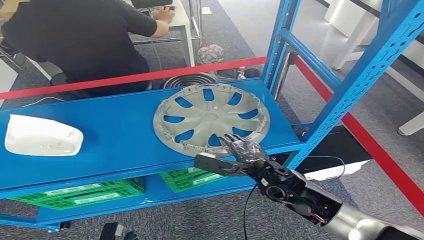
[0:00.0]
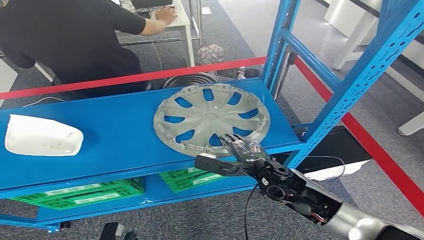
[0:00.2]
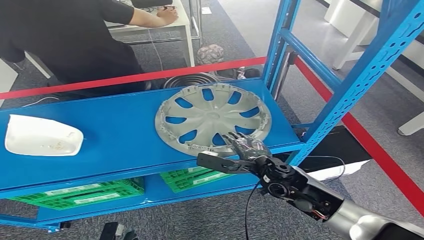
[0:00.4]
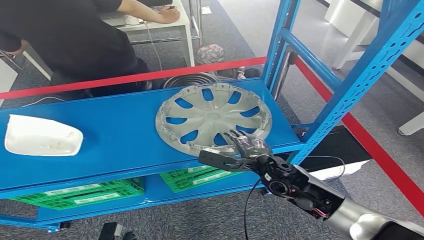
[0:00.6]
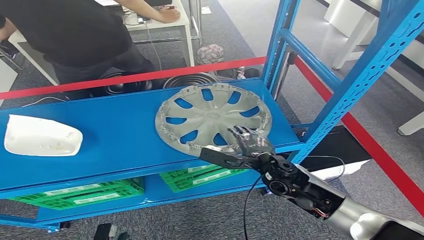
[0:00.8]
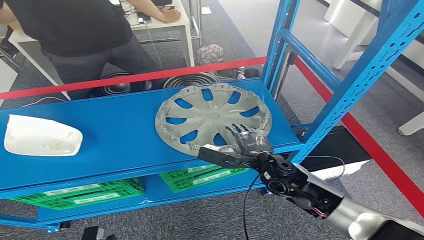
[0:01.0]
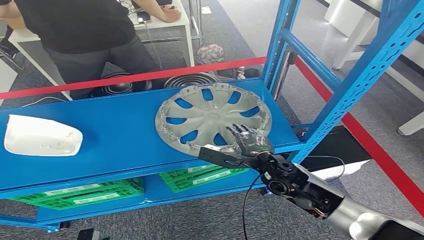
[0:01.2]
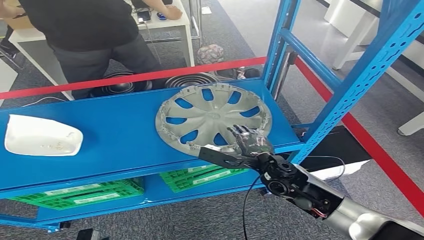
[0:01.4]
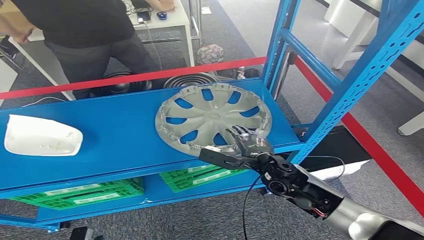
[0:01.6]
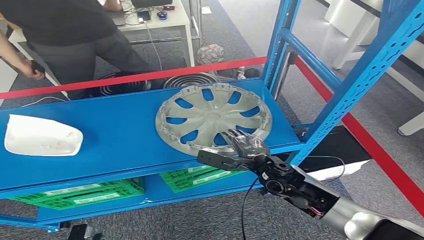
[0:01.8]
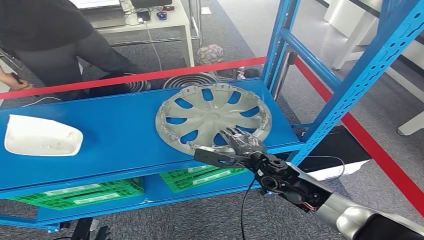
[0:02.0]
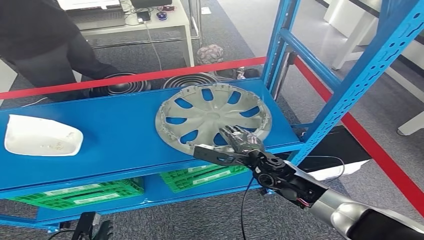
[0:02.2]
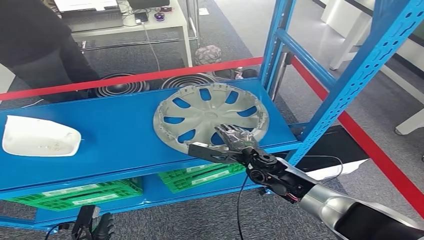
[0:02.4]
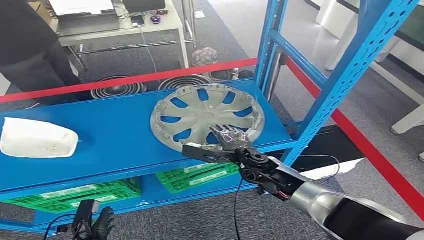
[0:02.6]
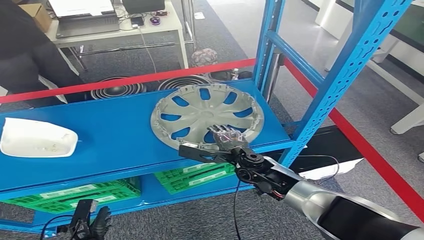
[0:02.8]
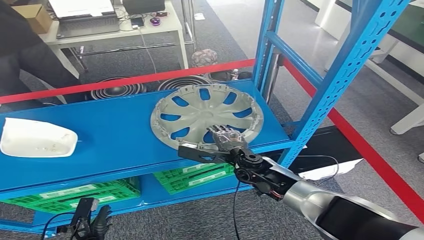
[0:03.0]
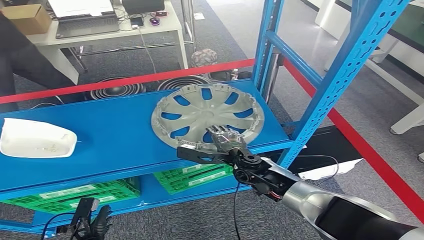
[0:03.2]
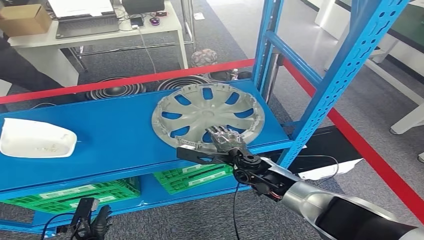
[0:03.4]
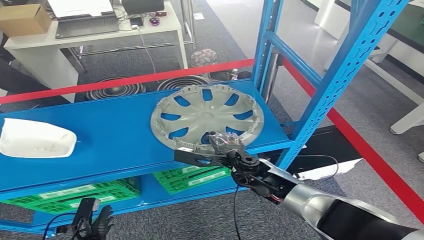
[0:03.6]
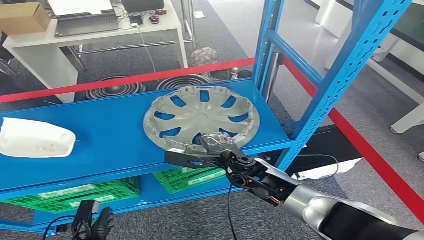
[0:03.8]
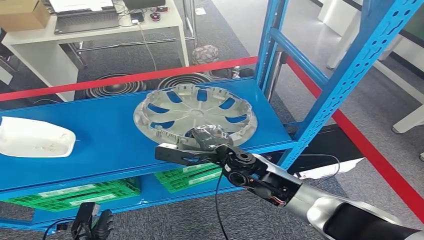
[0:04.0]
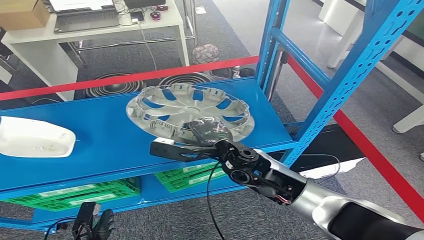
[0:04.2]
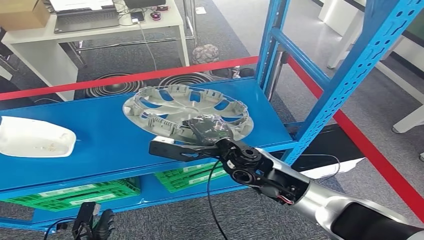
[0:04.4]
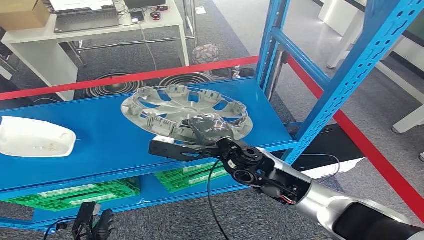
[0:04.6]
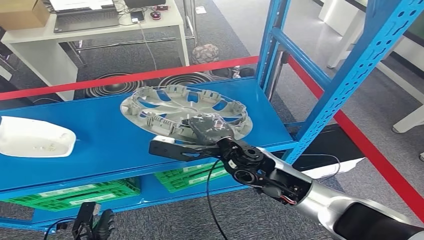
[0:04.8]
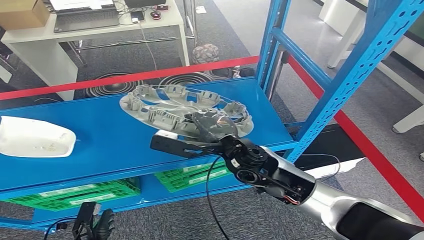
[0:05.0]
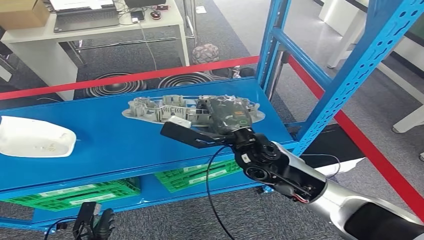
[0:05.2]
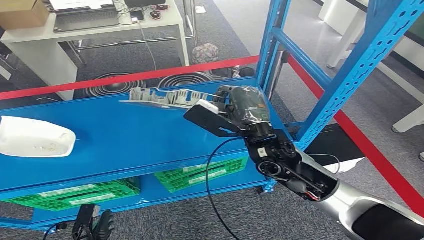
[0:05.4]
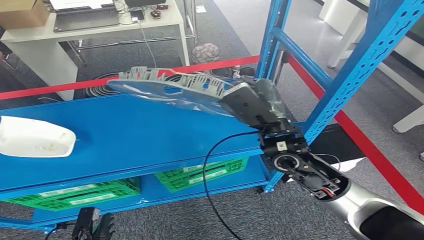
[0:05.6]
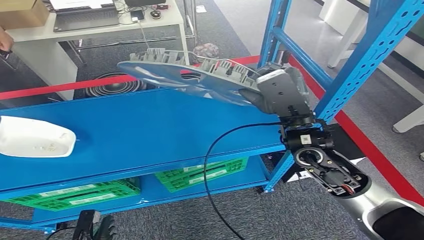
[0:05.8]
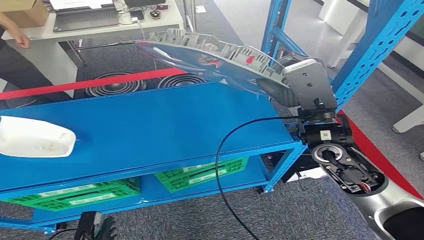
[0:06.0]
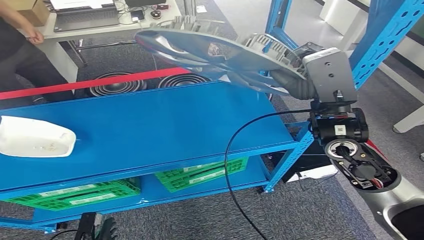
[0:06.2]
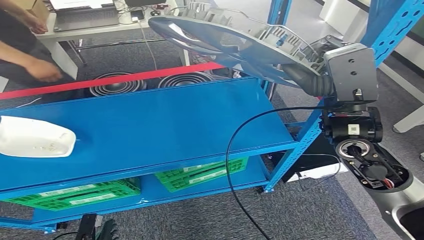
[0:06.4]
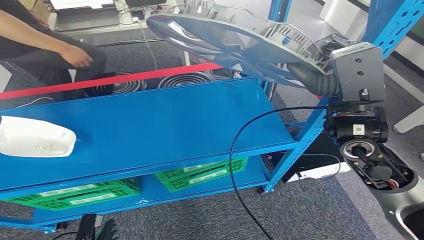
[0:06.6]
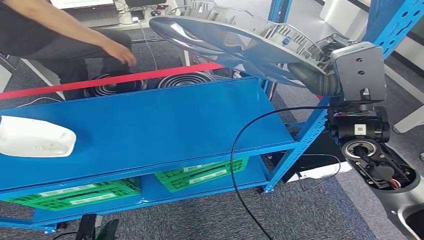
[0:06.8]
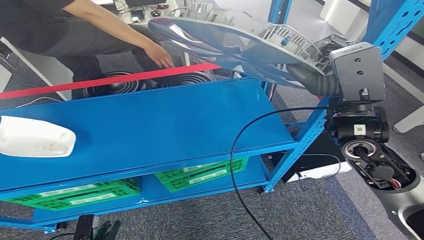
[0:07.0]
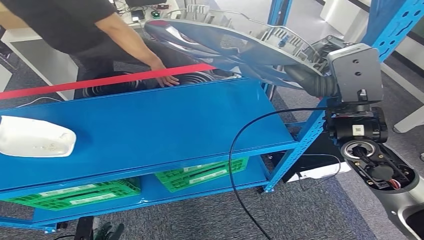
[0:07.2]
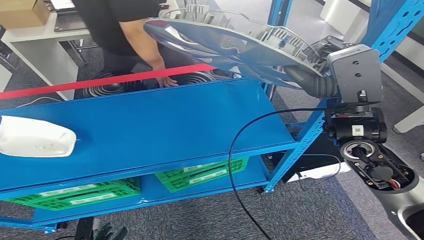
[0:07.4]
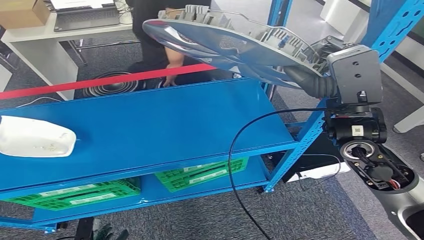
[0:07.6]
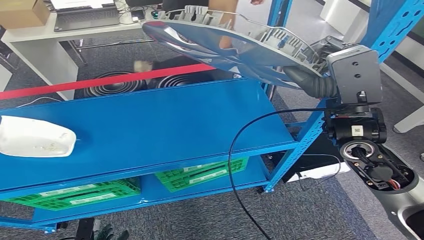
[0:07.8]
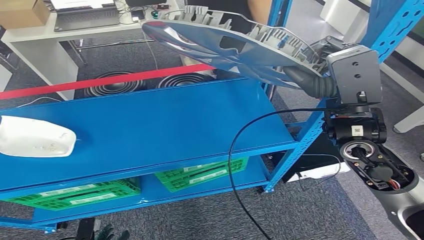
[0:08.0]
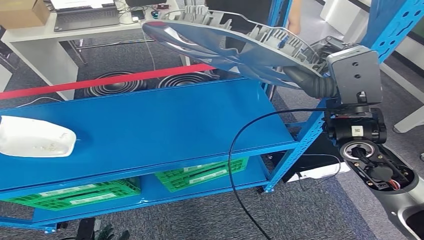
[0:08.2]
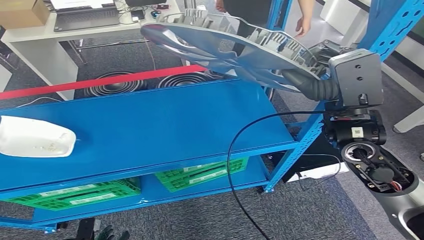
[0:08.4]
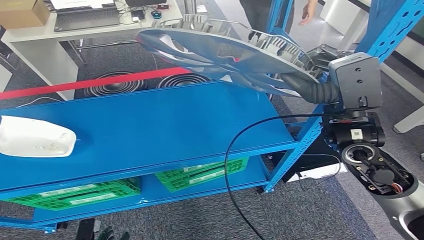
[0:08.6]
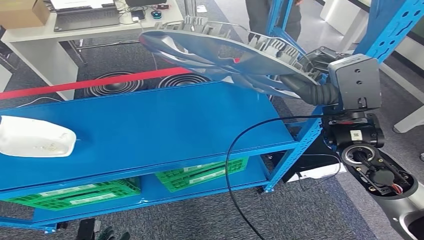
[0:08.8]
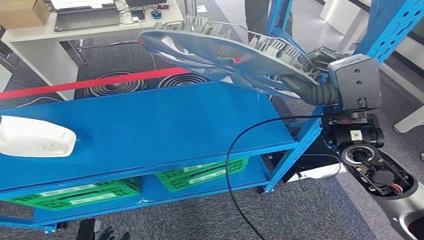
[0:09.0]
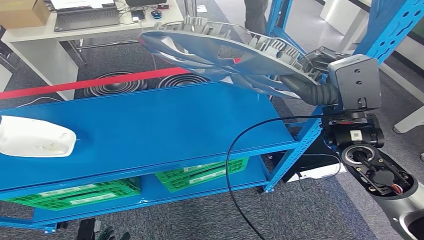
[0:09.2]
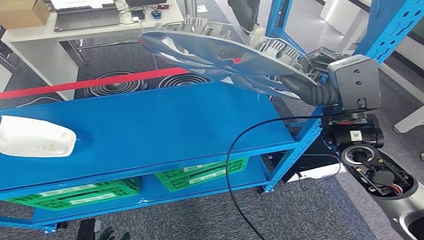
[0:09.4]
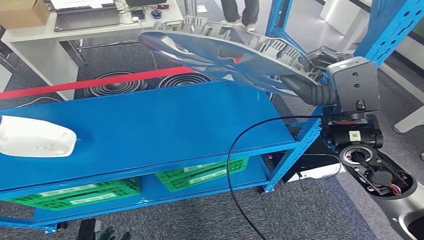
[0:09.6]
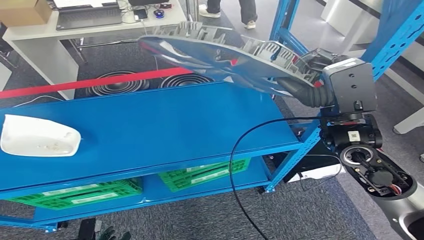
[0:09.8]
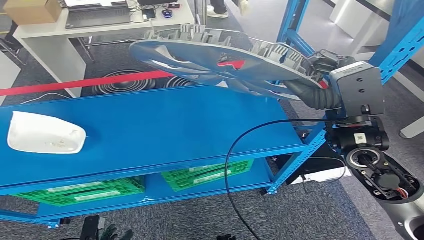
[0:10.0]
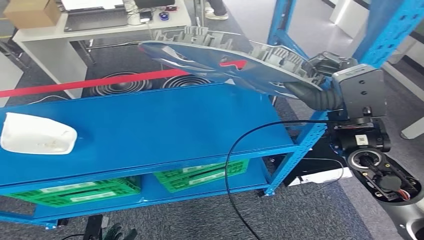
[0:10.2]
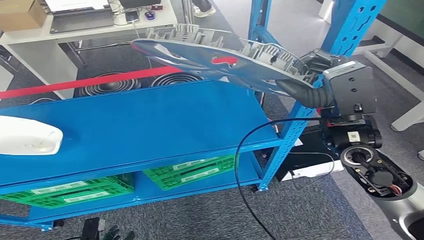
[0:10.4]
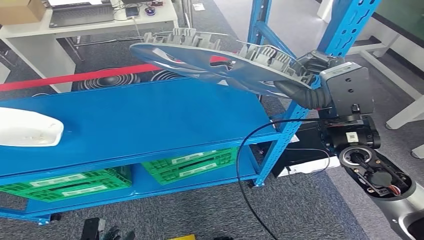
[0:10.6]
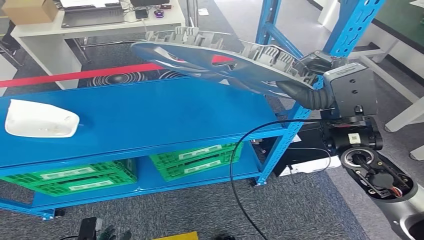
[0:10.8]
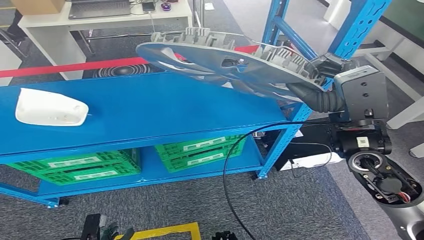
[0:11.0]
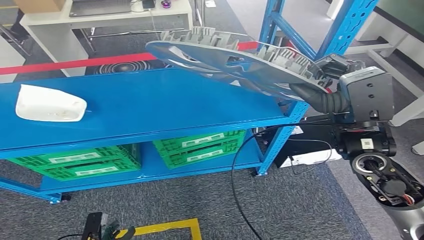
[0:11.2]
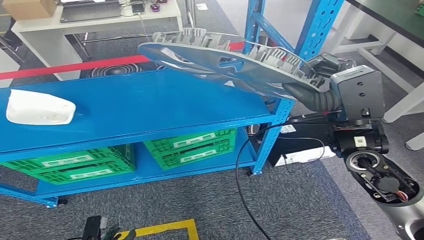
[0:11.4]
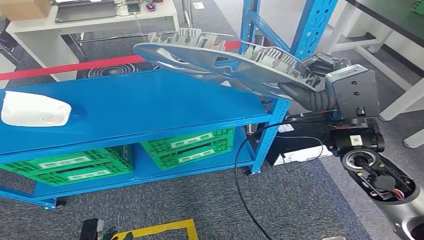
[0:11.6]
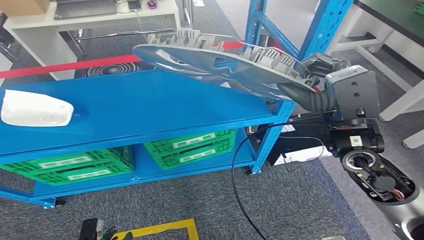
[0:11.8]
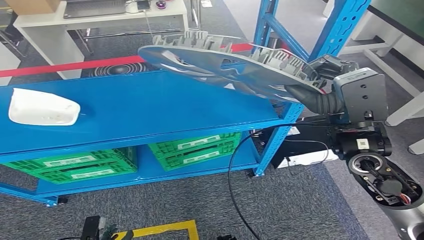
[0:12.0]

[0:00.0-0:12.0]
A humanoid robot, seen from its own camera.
Step, 0.0 to 7.6 s: Take small components from the rack.
0.0 to 1.6 s: The left hand heads to the left, covering roughly 5 cm.
7.6 to 9.0 s: The hands move only a little.

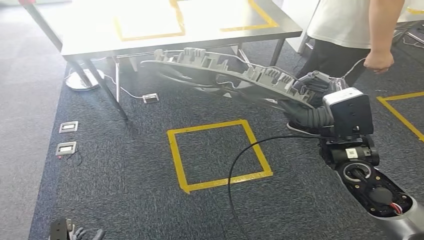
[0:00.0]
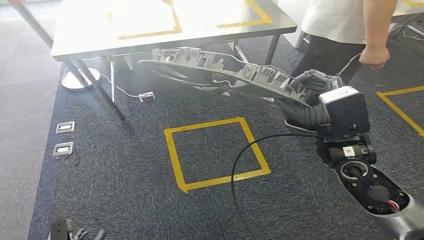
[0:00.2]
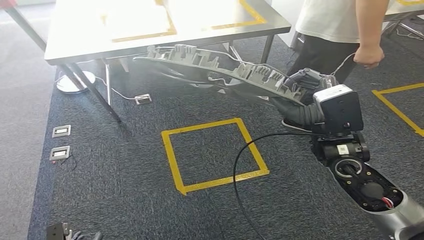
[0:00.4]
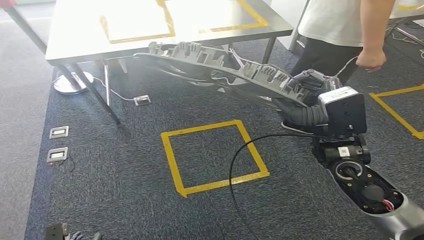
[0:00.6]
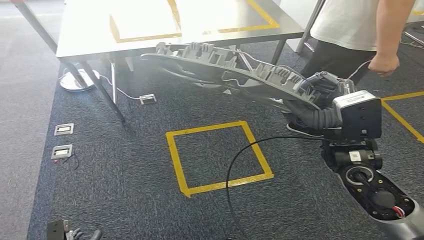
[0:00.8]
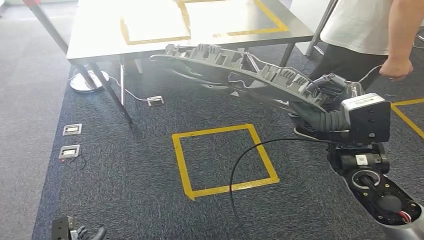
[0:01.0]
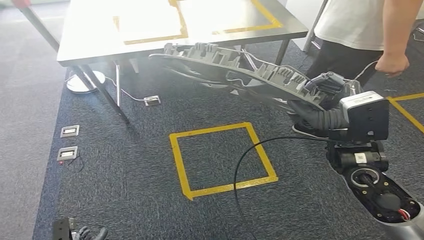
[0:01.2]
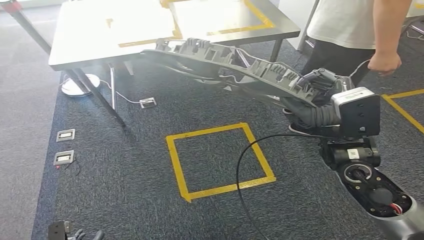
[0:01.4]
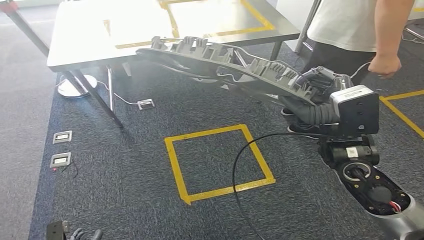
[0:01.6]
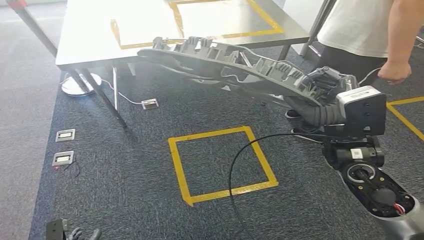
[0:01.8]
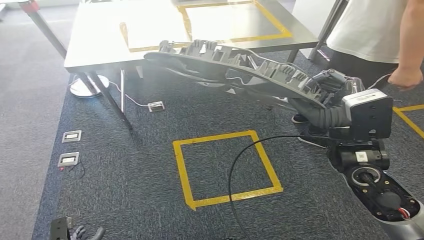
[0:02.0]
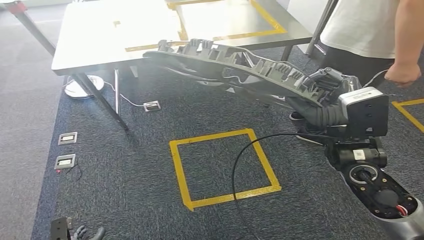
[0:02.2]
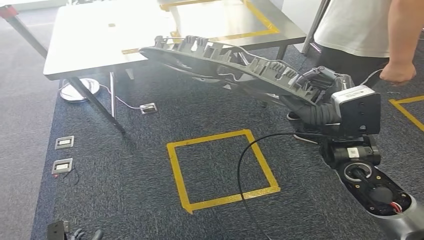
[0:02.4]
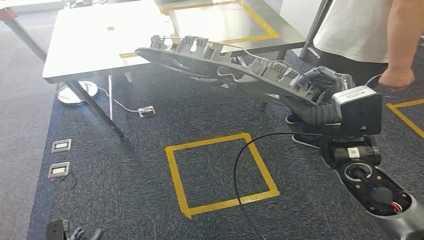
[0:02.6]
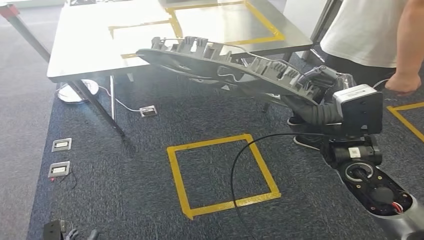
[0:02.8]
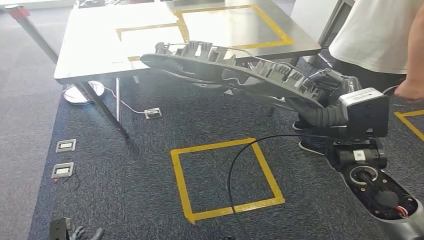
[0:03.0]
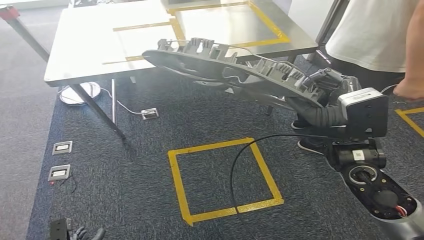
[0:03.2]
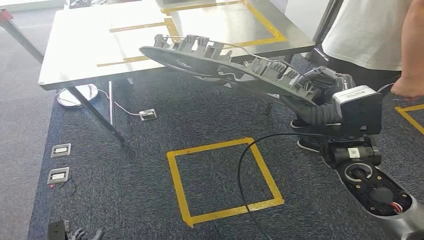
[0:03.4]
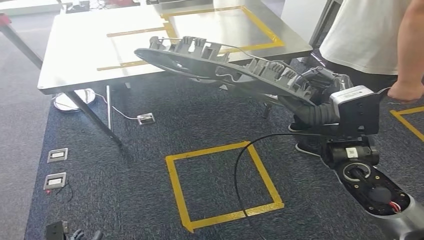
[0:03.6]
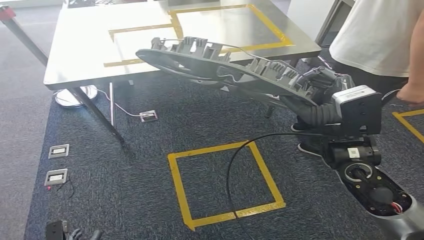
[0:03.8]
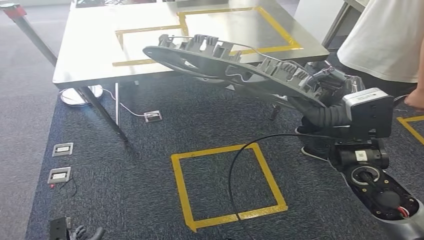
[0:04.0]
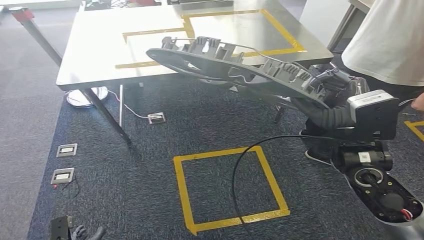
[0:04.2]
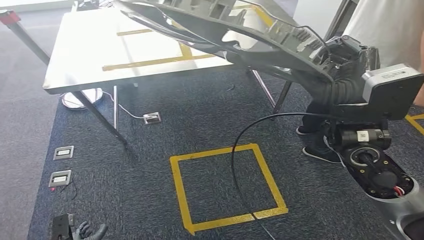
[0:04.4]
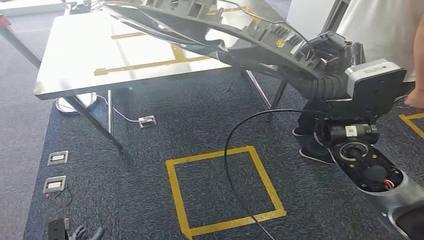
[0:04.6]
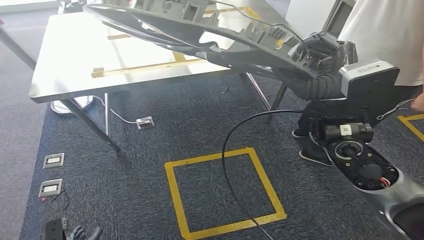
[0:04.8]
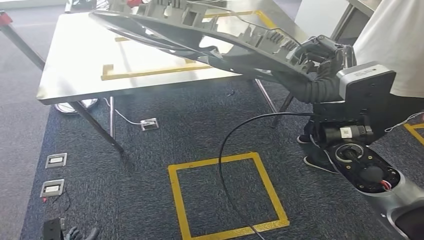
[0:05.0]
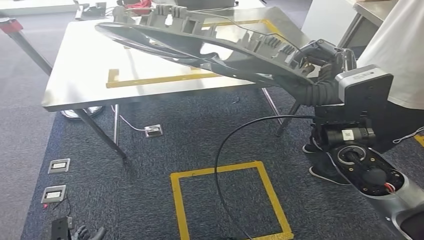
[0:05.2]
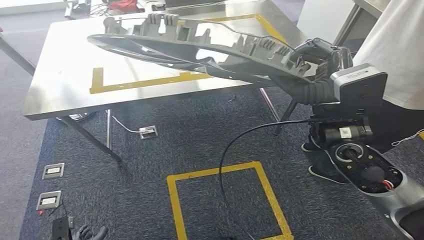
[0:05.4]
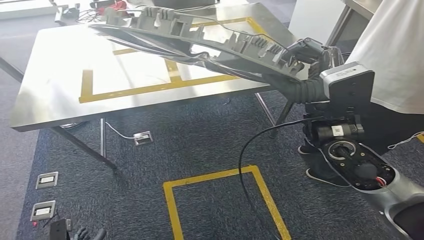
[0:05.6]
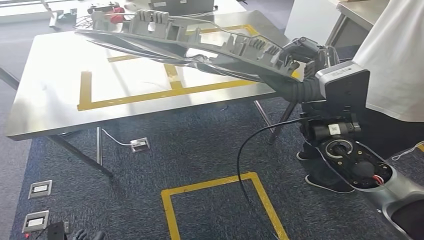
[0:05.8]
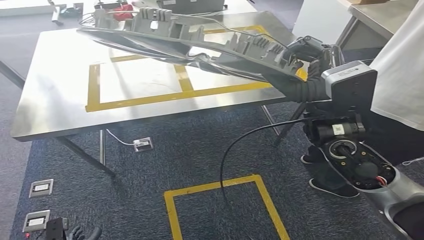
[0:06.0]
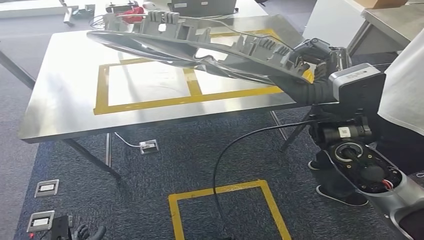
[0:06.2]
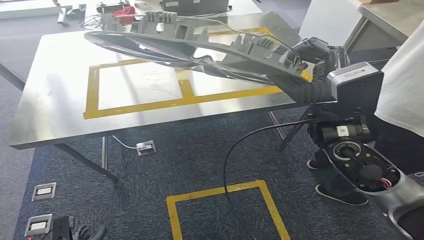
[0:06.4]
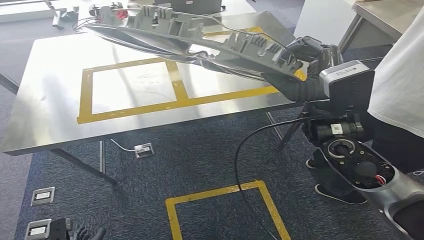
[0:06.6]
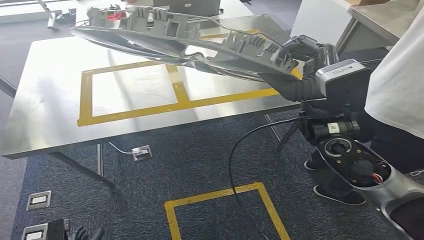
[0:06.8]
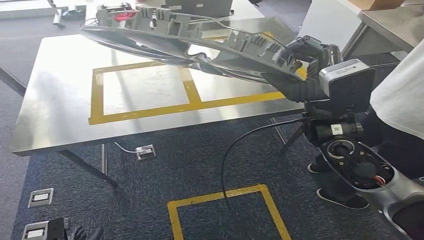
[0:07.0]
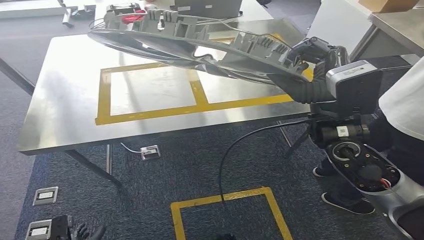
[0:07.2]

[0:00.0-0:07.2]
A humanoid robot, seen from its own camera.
0.0 to 1.4 s: The hands make only small movements.
